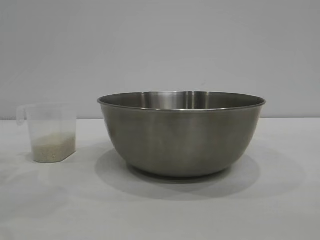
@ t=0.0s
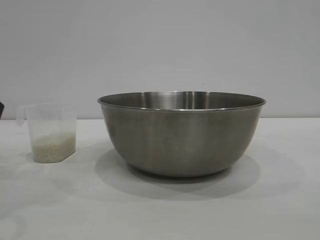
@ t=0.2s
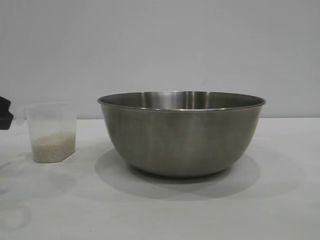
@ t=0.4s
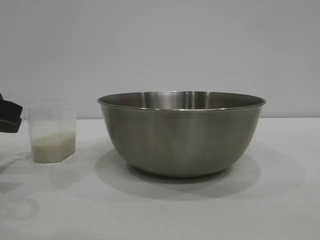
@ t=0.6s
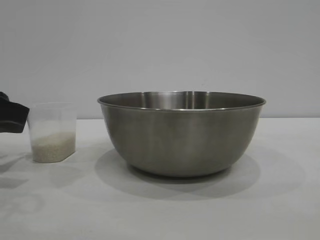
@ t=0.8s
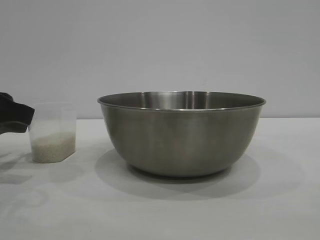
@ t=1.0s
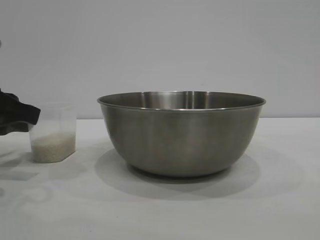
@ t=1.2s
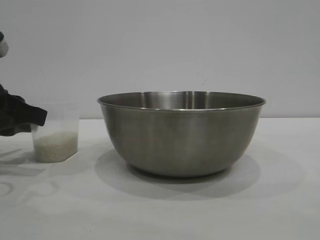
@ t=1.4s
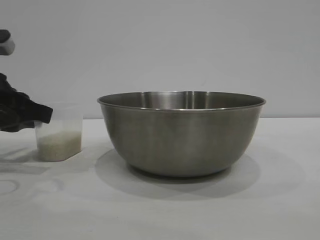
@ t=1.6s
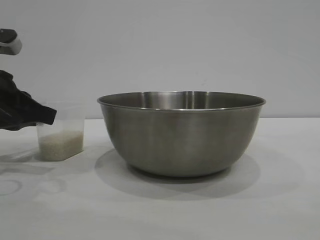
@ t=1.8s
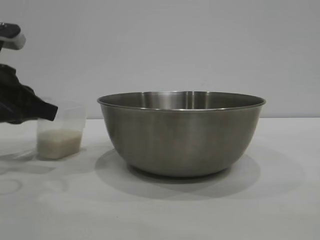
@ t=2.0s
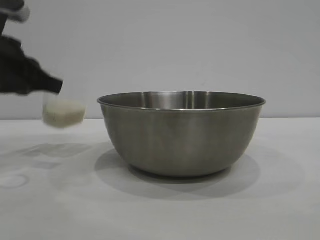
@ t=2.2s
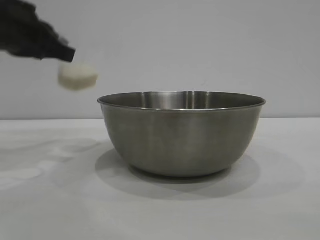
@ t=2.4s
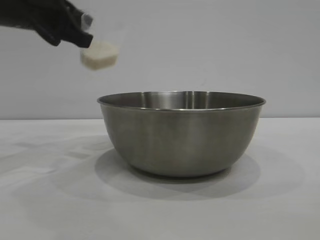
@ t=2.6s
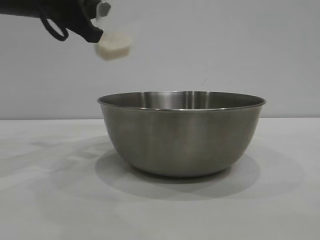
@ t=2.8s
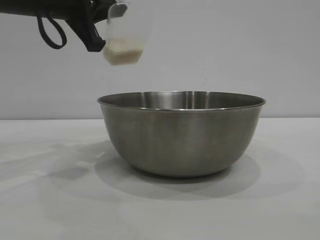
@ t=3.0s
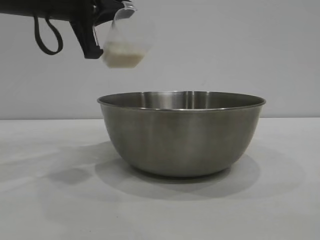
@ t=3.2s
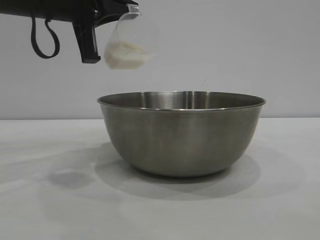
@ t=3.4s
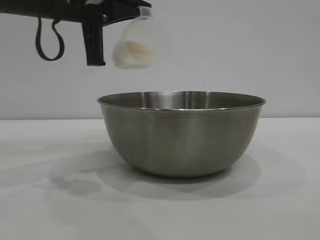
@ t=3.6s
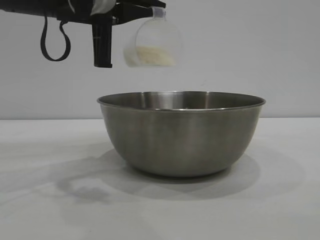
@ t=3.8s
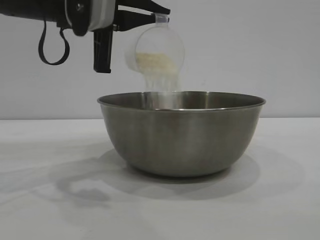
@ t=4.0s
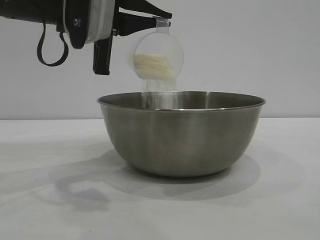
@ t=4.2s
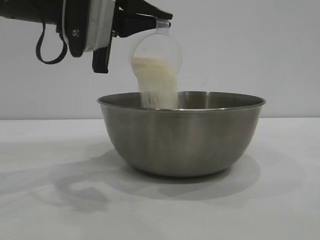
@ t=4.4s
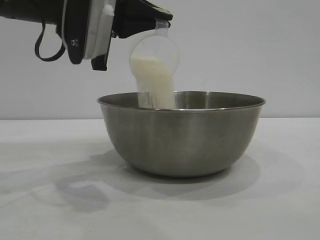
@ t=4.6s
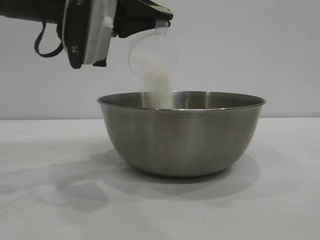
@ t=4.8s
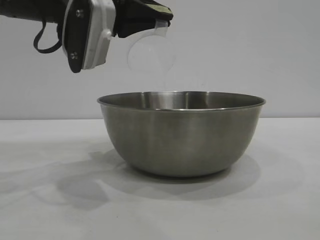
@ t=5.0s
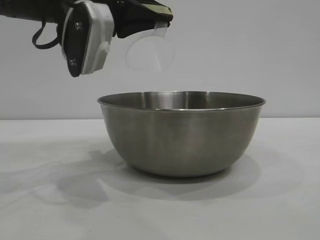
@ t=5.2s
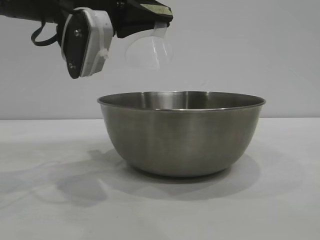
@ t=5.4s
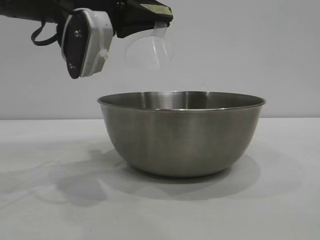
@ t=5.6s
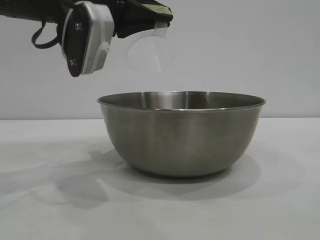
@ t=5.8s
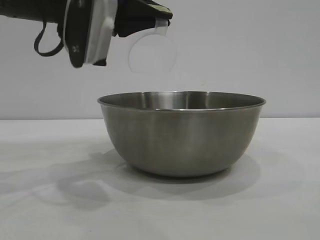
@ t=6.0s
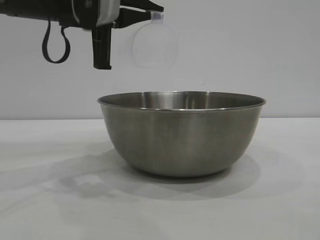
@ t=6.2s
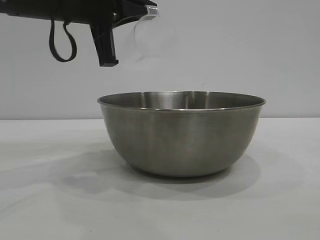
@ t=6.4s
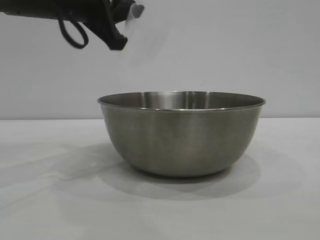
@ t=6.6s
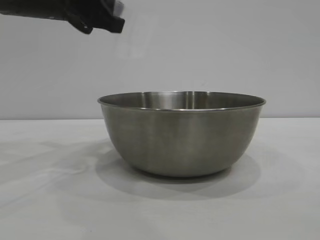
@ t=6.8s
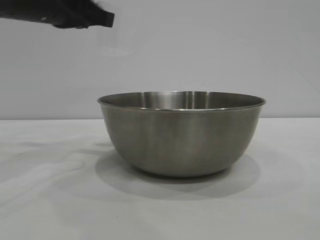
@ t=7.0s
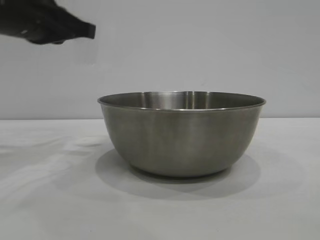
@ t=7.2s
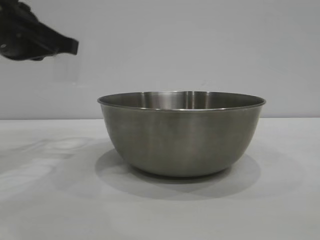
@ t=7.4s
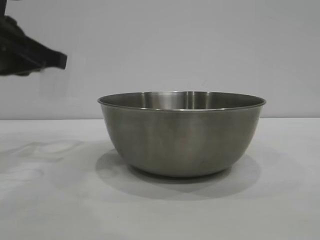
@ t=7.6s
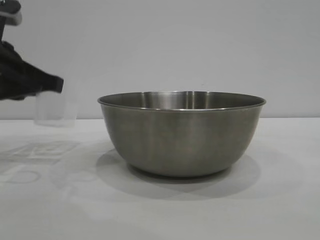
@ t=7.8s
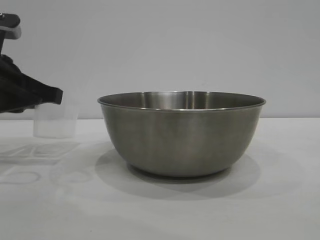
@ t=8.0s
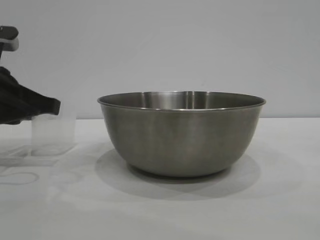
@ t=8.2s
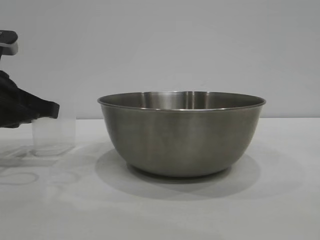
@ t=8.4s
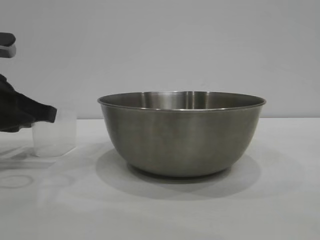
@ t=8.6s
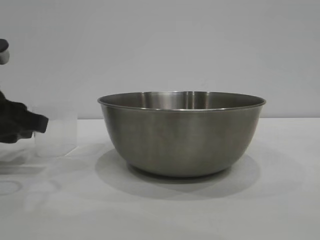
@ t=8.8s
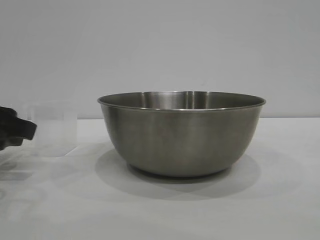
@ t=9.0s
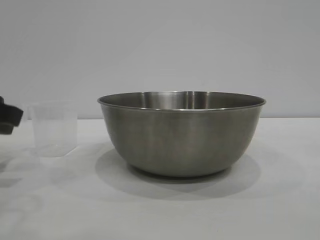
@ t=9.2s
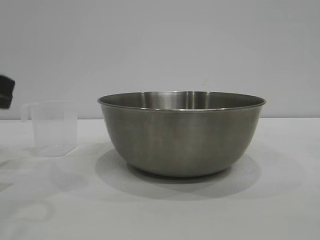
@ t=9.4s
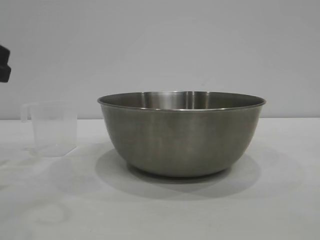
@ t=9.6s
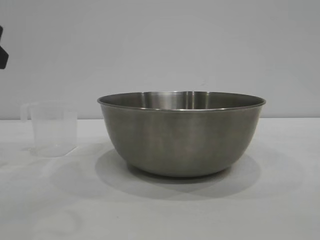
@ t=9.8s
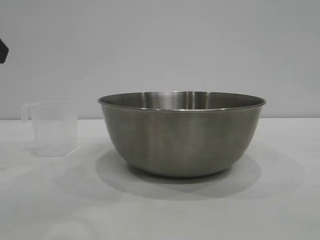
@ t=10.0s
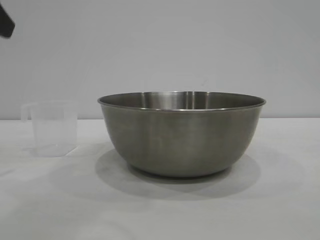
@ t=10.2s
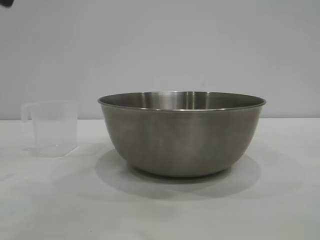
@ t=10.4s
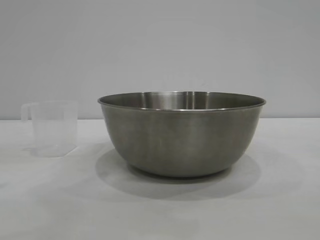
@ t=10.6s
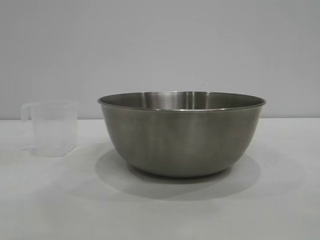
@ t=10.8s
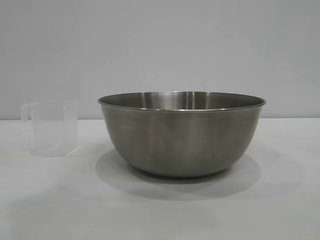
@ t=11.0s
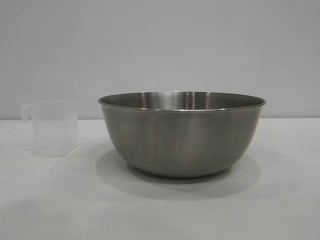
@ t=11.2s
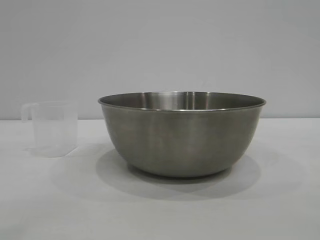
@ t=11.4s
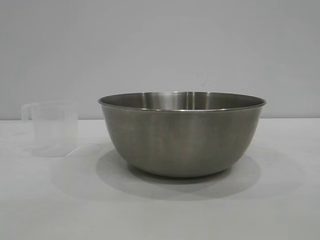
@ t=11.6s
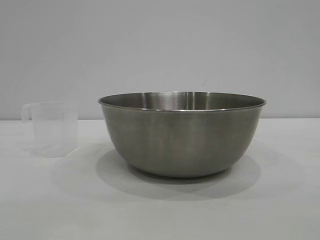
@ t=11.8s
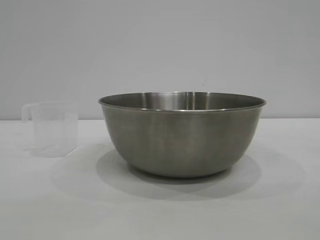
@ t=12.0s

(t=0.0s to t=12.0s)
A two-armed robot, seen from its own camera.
Task of the whole recording: the right gripper grasp the rice container and place it in the center of the table, the left gripper grasp the rice scoop and pour the rice into the rice container.
Step, t=0.0s - t=2.4s: Pick up the cup with rice in it with the left gripper.
Step, t=2.6s - t=6.2s: Pour the rice from the cup into the bowl with the left gripper.
Step, t=6.6s - t=9.6s: Place the cup on the table with the left gripper.
